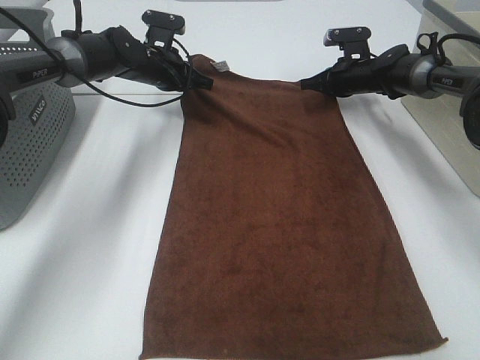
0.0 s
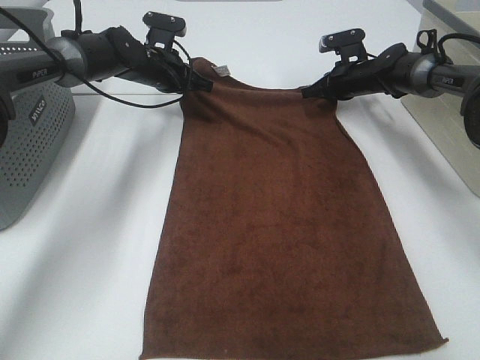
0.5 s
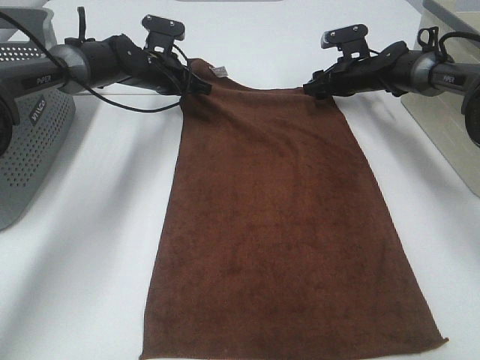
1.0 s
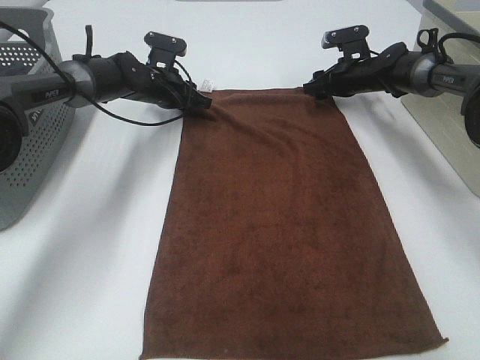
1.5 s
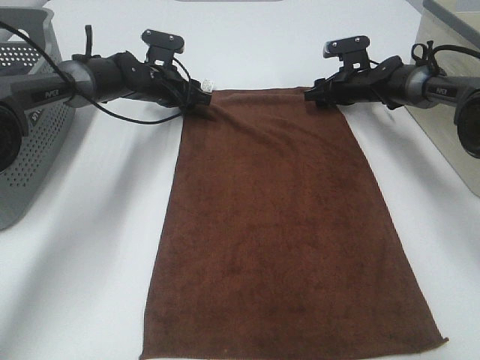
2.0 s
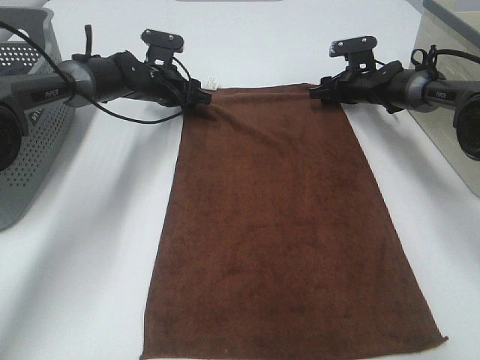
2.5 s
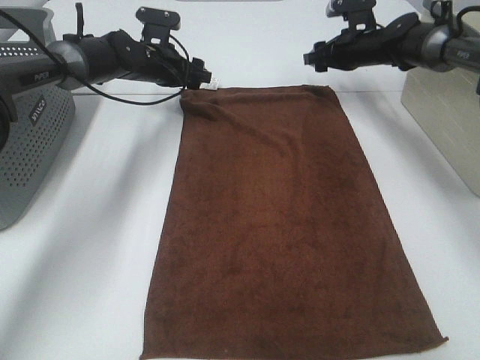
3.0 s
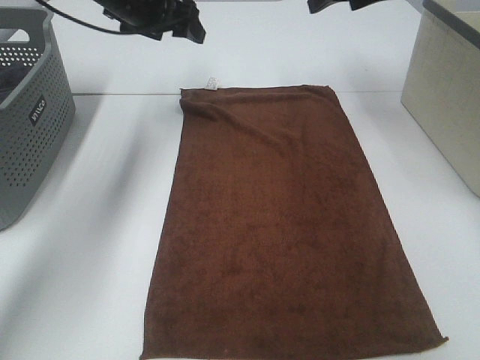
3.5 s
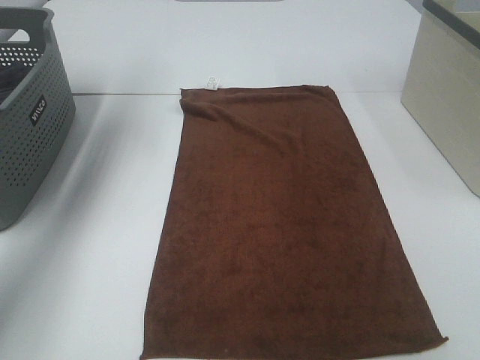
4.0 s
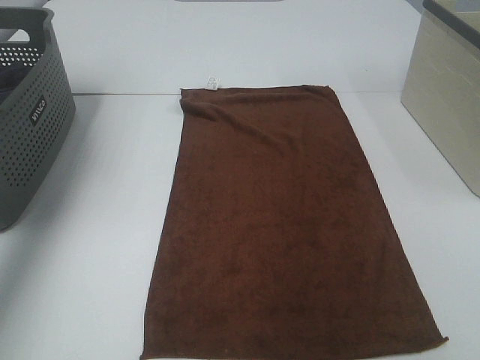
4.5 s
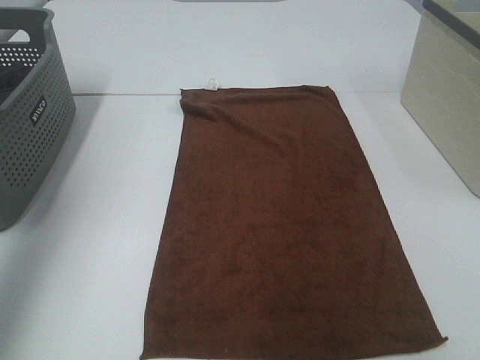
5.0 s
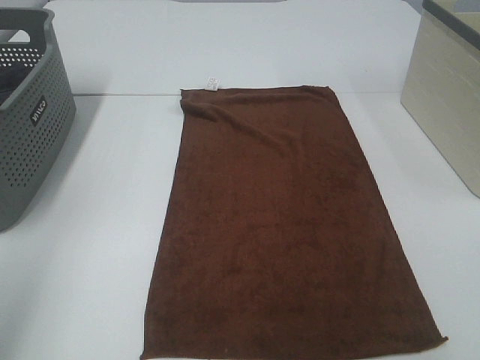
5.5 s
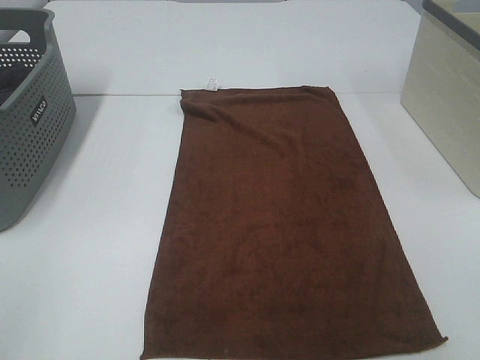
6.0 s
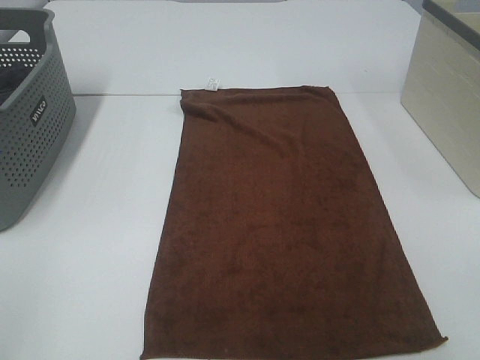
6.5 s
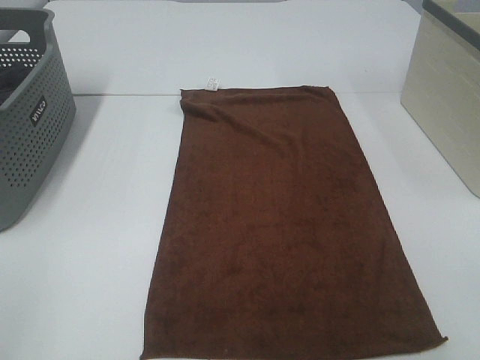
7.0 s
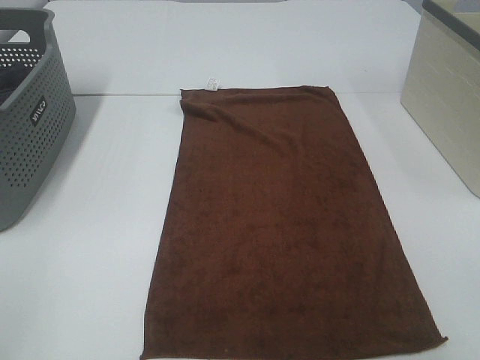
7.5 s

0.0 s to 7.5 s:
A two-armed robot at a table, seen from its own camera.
Task of the whole recording: Remove the towel and place it.
0.0 to 2.0 s: The right gripper opens its fingers. Meanwhile the left gripper opens.
2.0 to 4.0 s: The right gripper heads upward and backward, covering about 40 cm; the left gripper moves upward and to the left, roughly 35 cm.
4.0 to 5.5 s: The left gripper goes about 40 cm backward.
5.5 to 7.5 s: The left gripper heads downward and backward, covering roughly 15 cm.

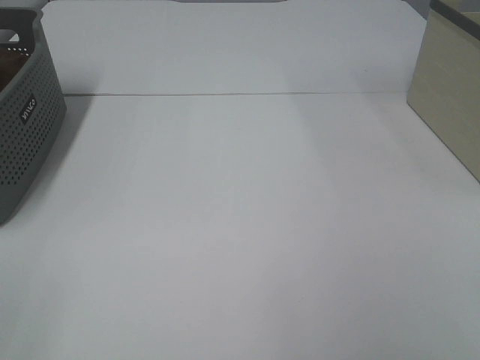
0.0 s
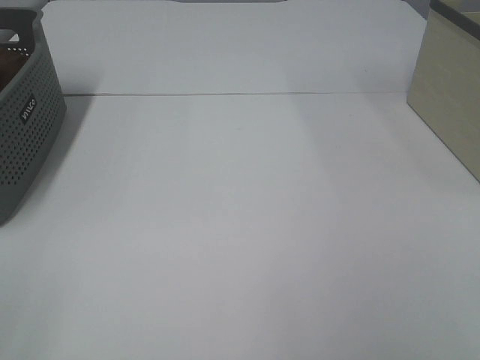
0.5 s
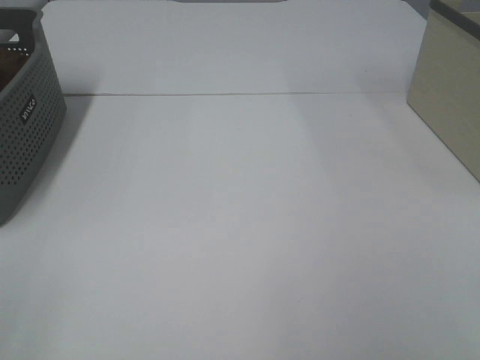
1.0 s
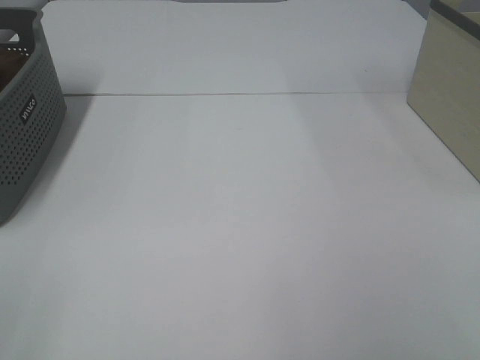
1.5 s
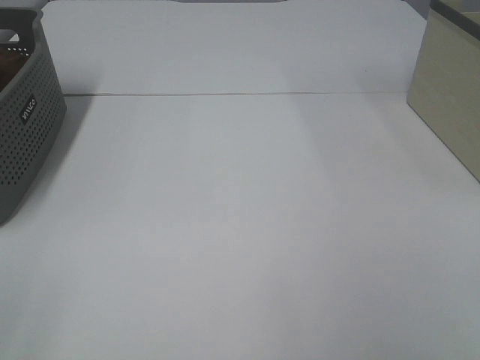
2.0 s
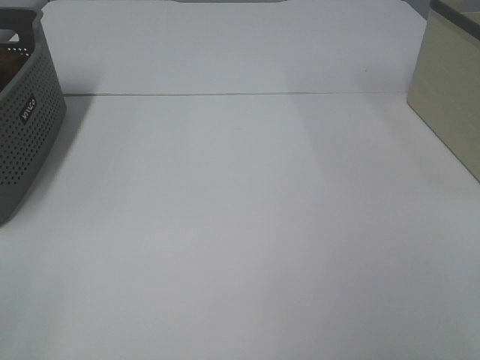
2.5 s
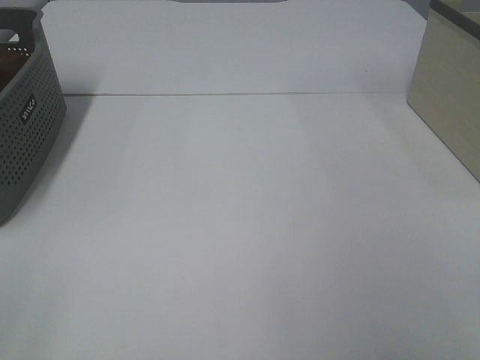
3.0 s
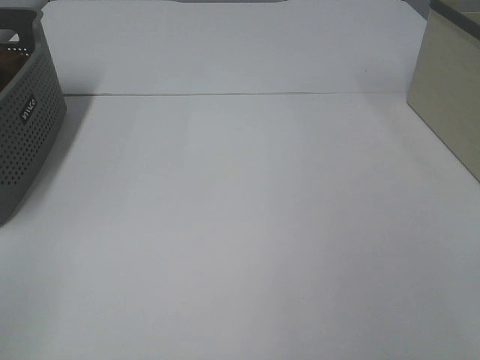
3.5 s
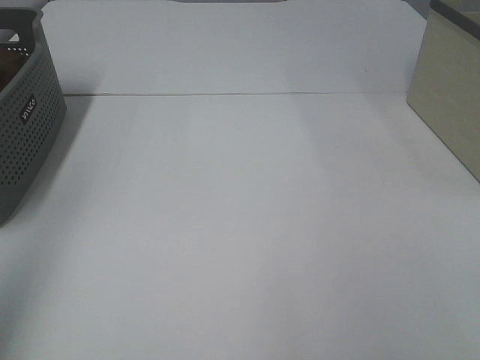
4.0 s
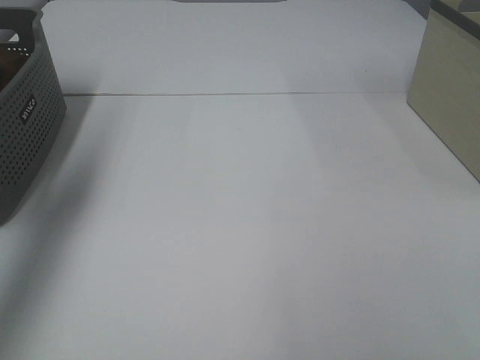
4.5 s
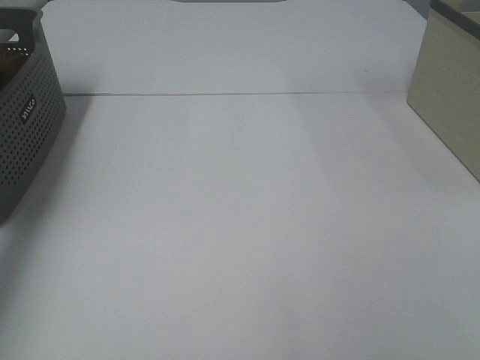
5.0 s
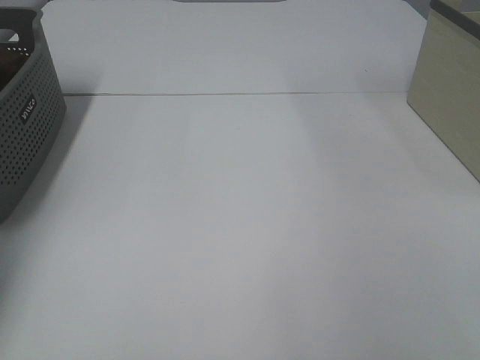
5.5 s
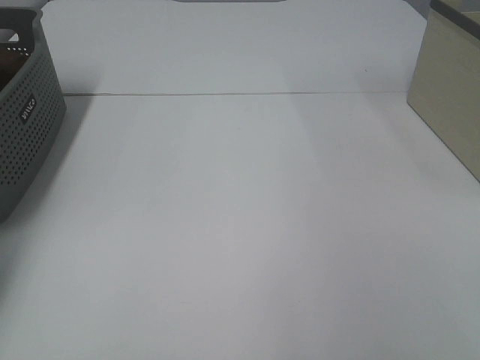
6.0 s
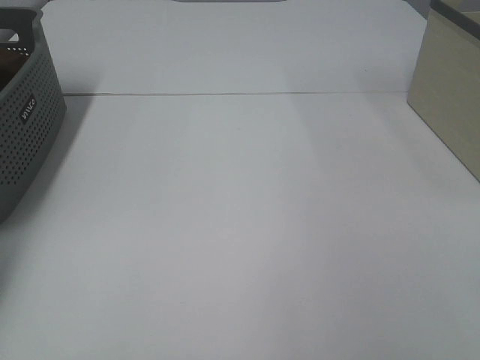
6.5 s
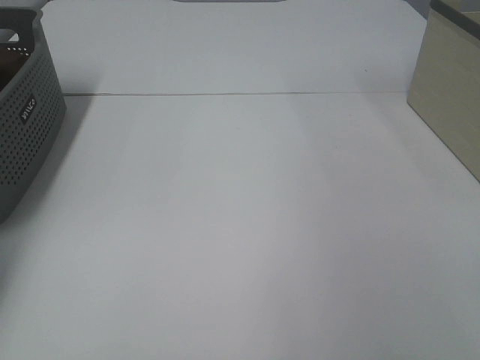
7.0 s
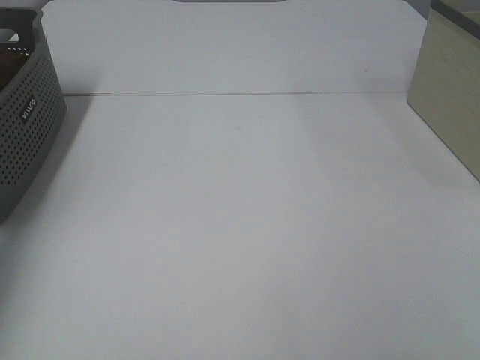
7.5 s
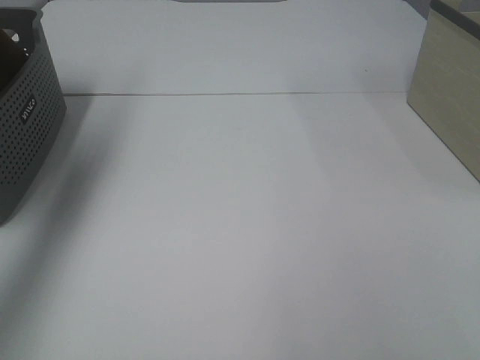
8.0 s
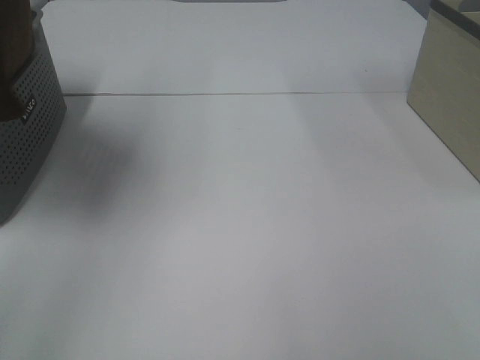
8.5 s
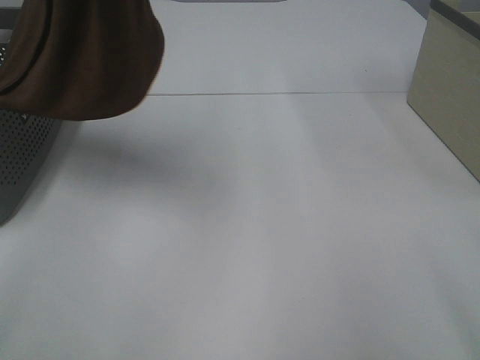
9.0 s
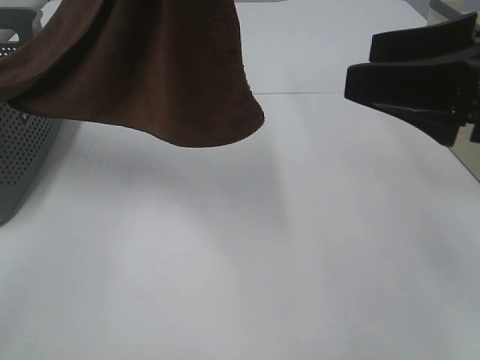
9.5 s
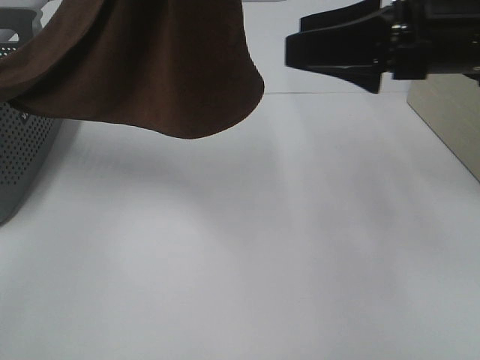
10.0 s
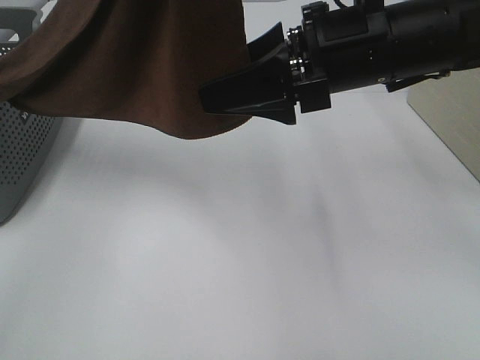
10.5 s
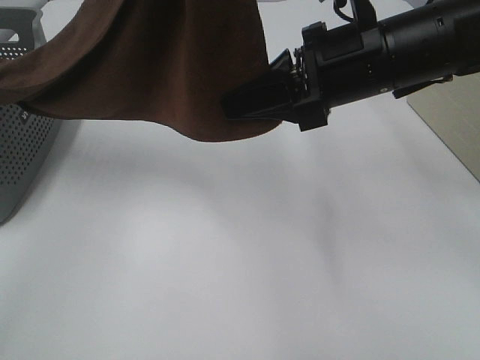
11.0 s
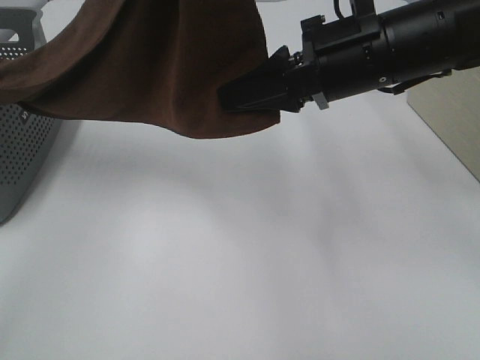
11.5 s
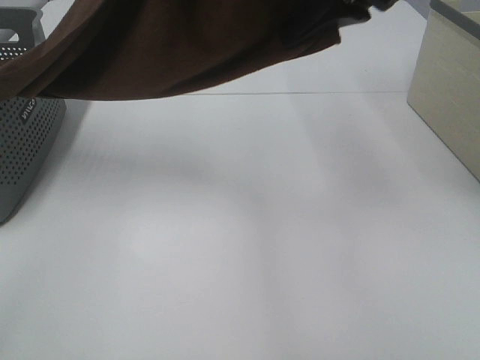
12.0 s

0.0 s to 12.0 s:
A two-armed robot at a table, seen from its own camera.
Task of the whole recording: Remove the towel and place it.
Step, 8.0 to 11.0 s: Right hand: grab a corner of the brown towel and straighten it.
0.0 to 2.0 s: Neither gripper changes place.
2.0 to 4.0 s: The left gripper moves forward and upward, some 15 cm.
4.0 to 6.0 s: The left gripper heads forward and downward, covering roughly 40 cm.
6.0 to 8.0 s: The left gripper travels upward, to the right and backward by about 25 cm, and closes its fingers.
8.0 to 10.0 s: The left gripper is displaced to the right and backward by about 30 cm. Meanwhile the right gripper heads forward and to the left, covering some 30 cm.
10.0 to 12.0 s: The right gripper moves upward, roughly 10 cm, and closes.

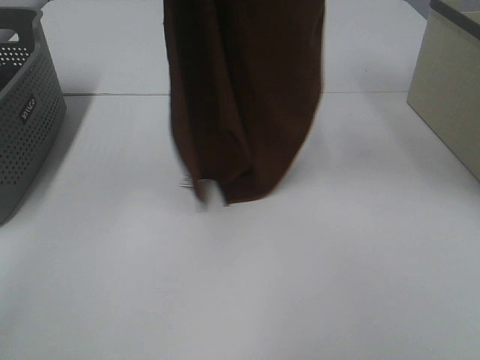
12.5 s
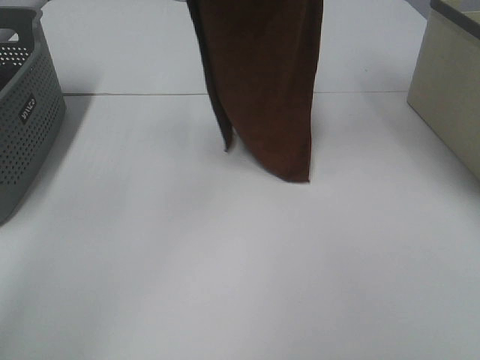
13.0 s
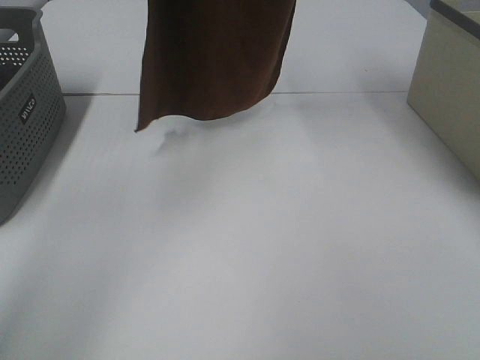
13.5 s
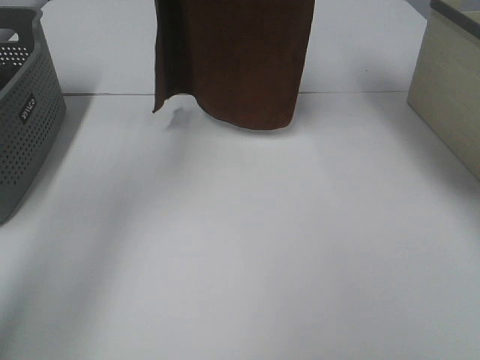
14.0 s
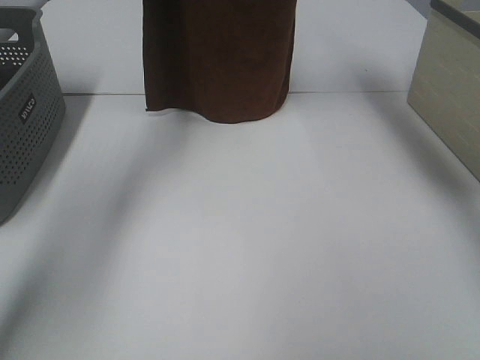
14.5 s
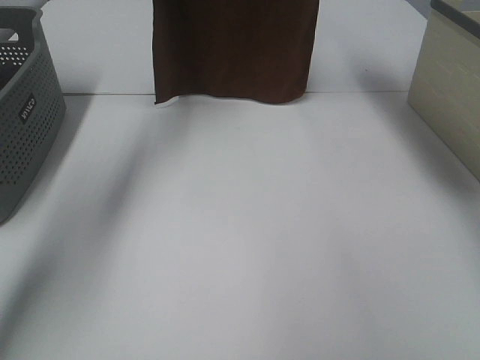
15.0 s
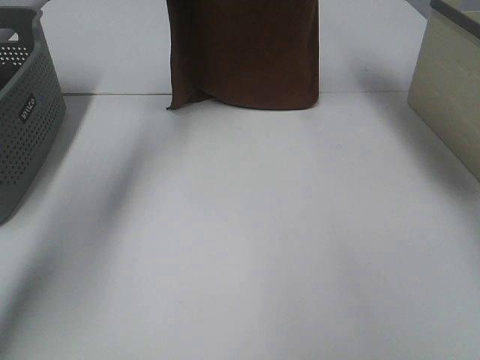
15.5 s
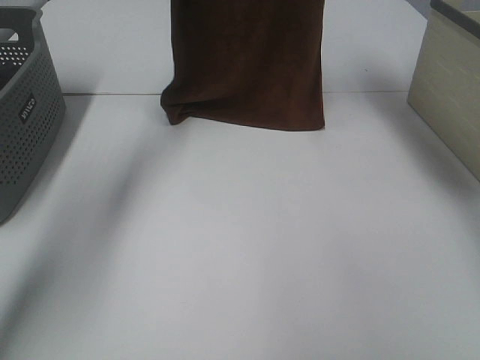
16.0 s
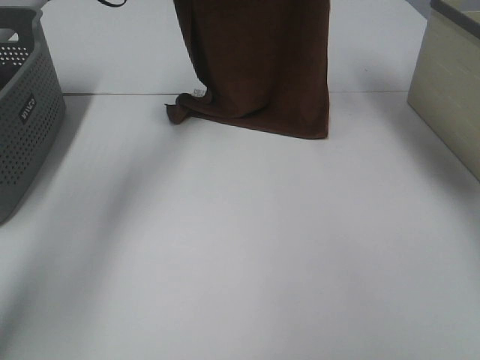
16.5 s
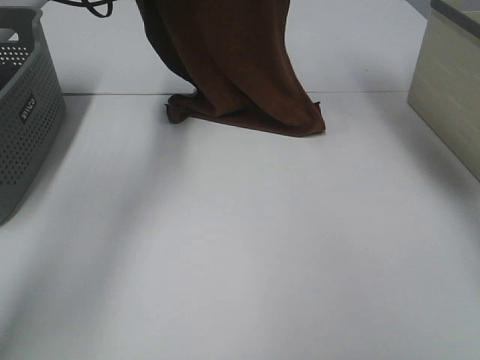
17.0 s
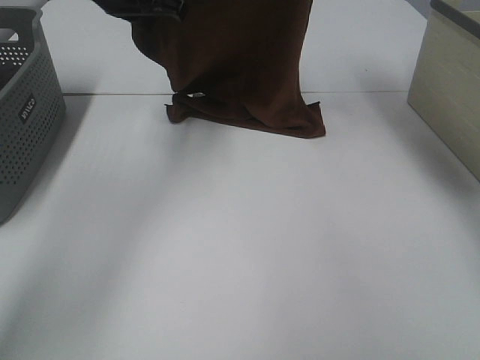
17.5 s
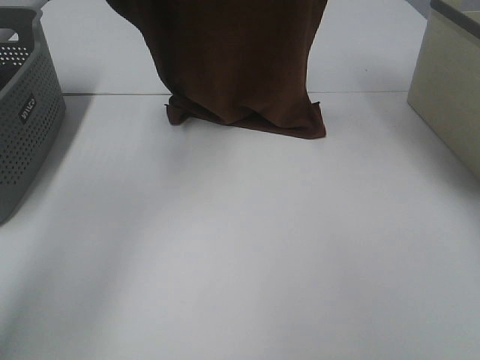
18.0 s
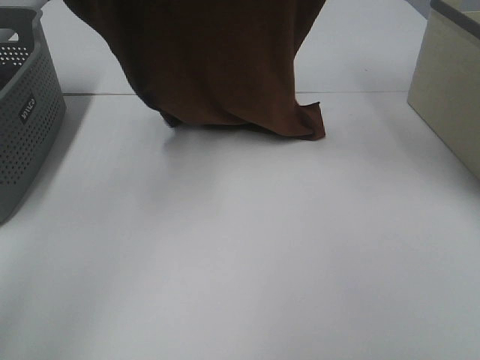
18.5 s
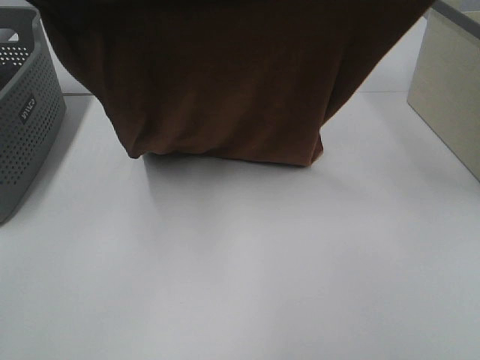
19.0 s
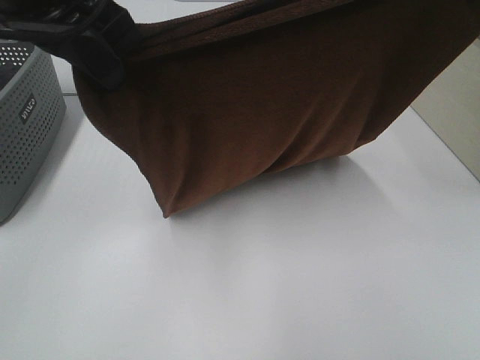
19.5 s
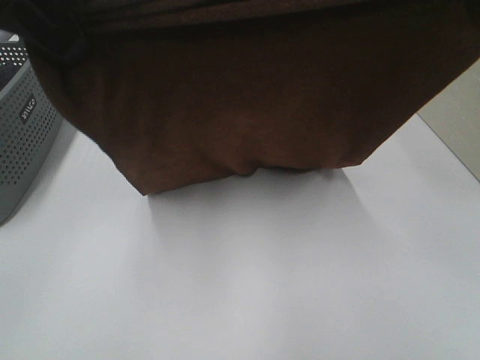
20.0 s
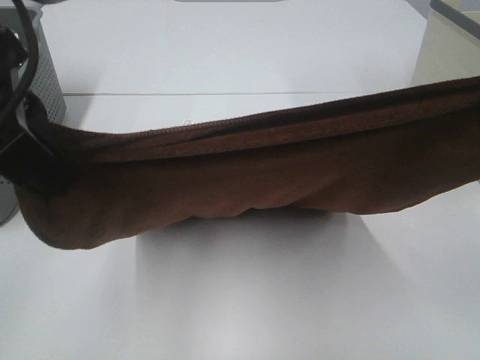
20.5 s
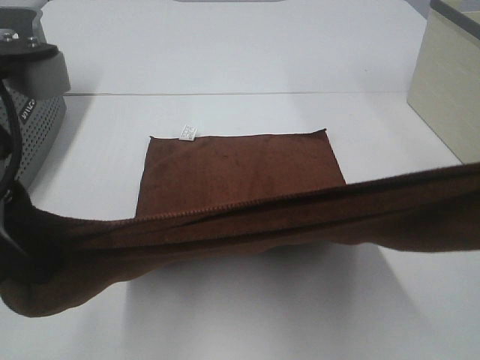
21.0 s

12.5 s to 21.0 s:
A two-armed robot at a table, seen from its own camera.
Task of the whole recording: Remove the towel and place it.
Step, 12.5 to 18.5 s: Left hand: spread the brown towel flat on the table.
Step, 12.5 to 18.5 s: Right hand: spread the brown towel flat on the table.
12.5 to 14.5 s: The left gripper shifts approximately 20 cm forward and downward. The right gripper heads forward, covering about 15 cm.
14.5 to 16.5 s: The right gripper is displaced downward by approximately 5 cm; the left gripper is displaced downward by approximately 10 cm.
16.5 to 19.0 s: The left gripper is displaced backward and upward by approximately 25 cm, while the right gripper moves backward, about 20 cm.
19.0 to 21.0 s: Both grippers move backward and downward, roughly 15 cm.
